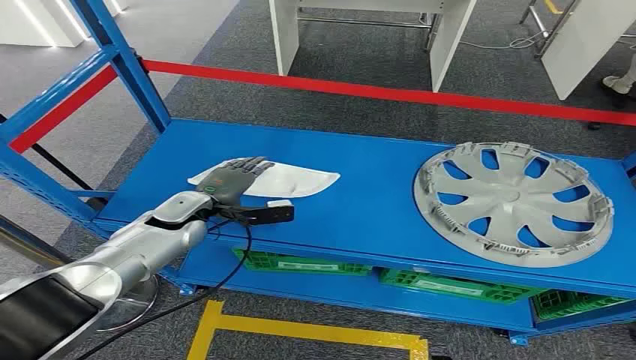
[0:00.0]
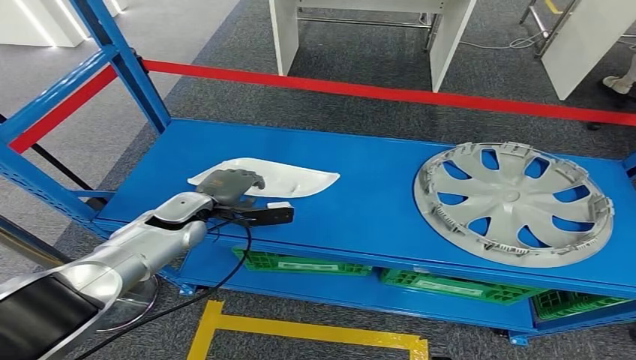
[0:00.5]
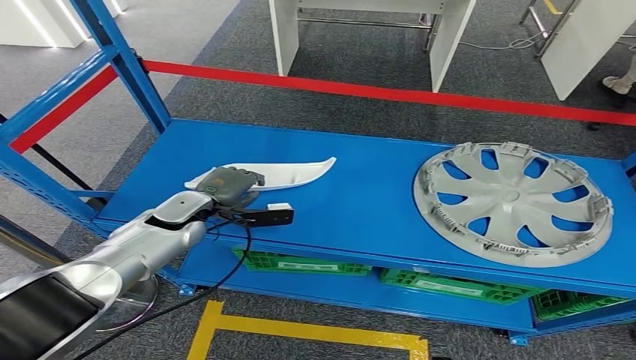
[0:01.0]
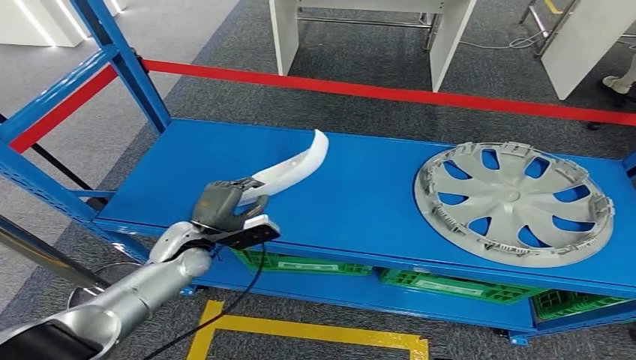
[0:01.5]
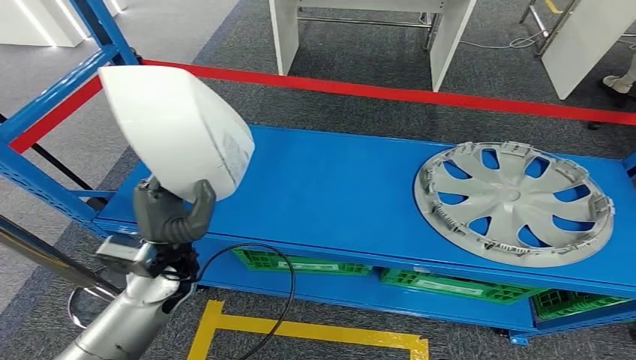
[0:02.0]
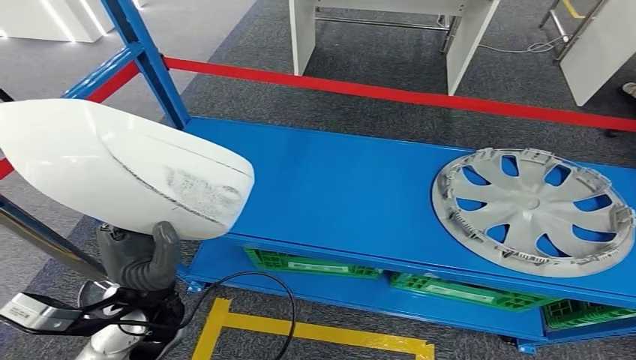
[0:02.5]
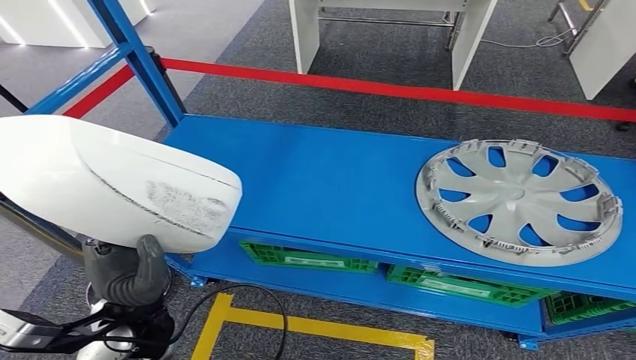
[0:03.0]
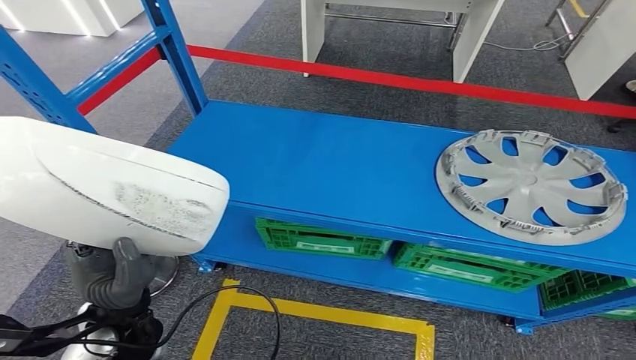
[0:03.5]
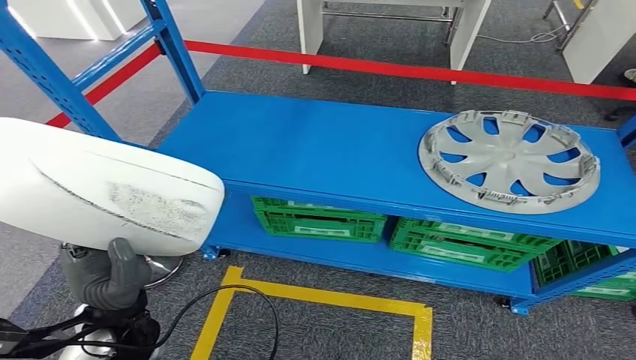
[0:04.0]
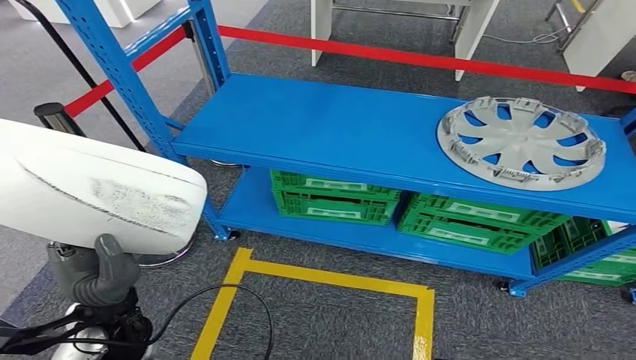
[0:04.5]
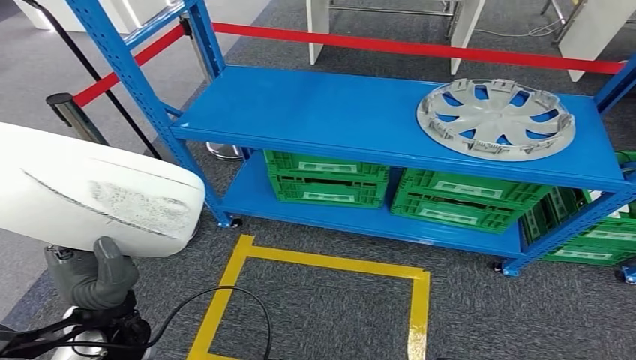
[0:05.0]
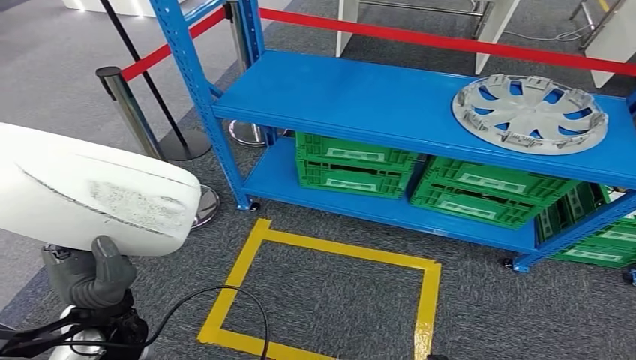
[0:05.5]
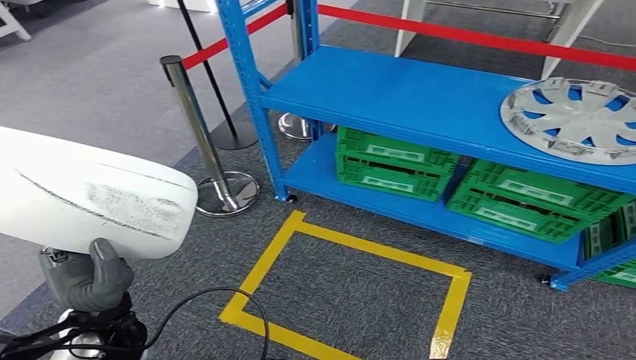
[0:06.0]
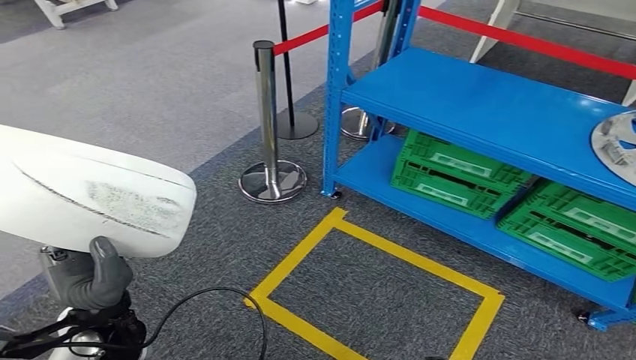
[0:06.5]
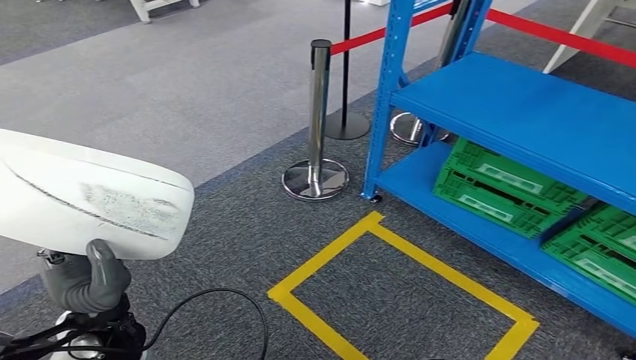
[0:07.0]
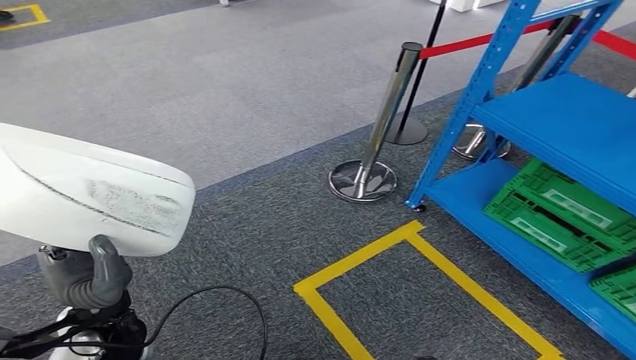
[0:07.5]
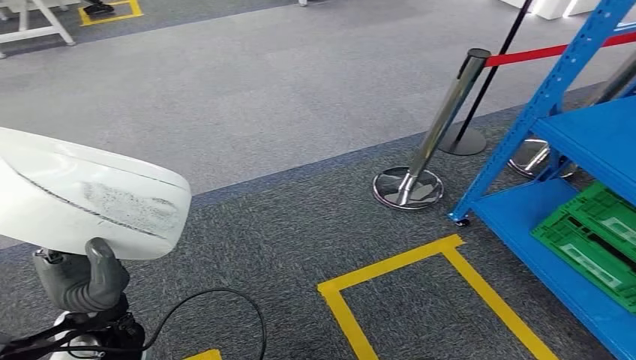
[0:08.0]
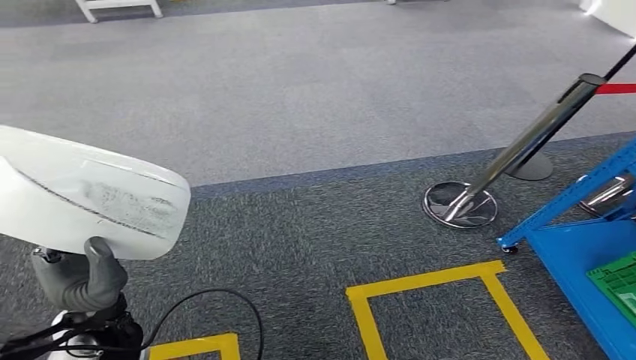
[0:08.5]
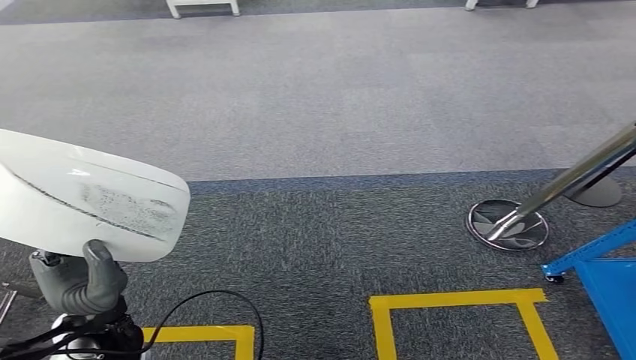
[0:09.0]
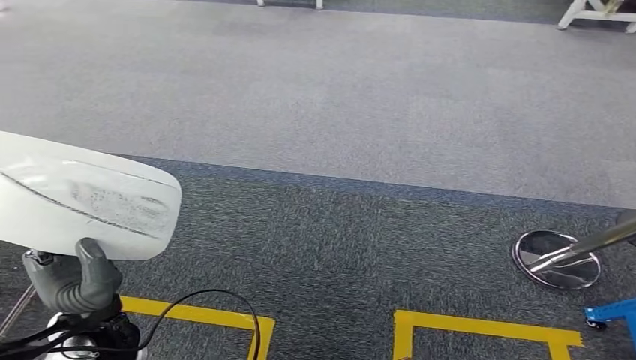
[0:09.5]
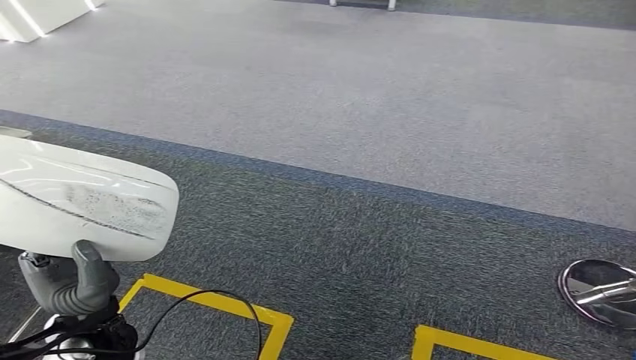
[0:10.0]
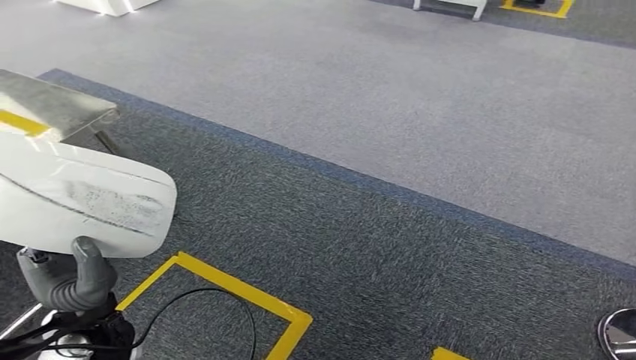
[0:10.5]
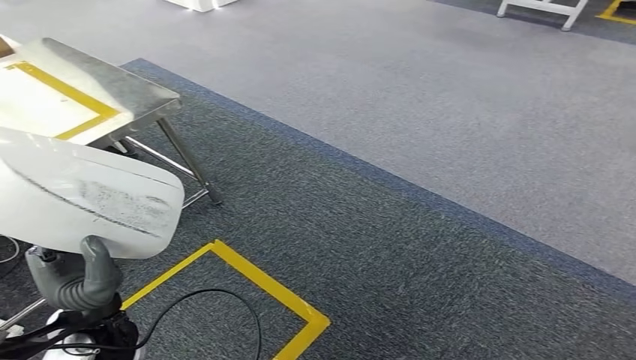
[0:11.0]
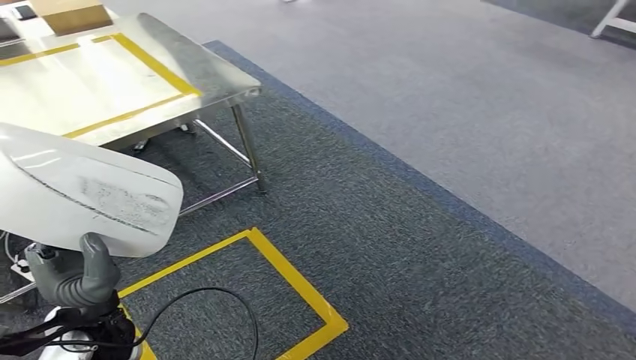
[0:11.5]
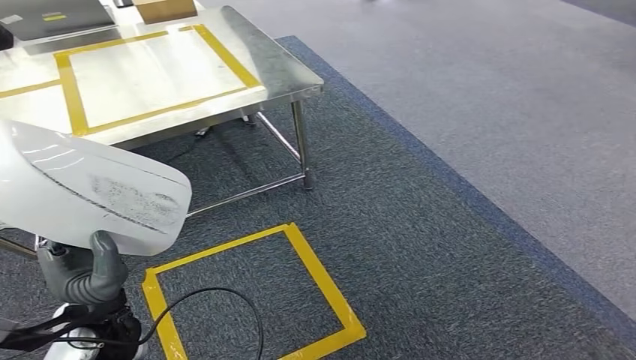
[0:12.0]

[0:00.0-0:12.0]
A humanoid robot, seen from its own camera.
Step, 0:00.0 to 0:03.5: Pick up the small component from the shelf.

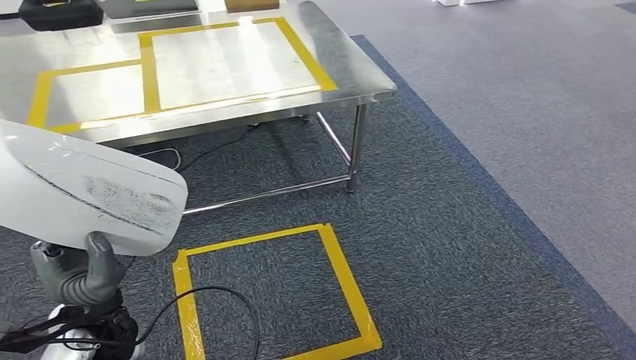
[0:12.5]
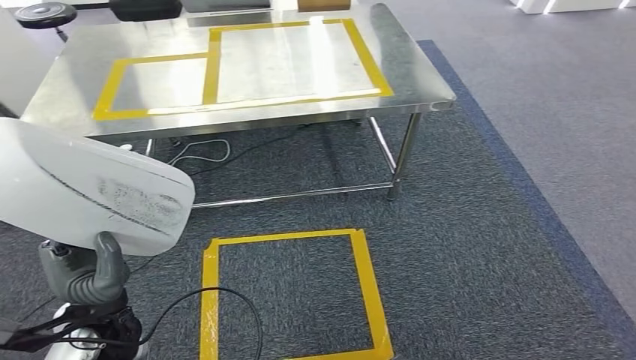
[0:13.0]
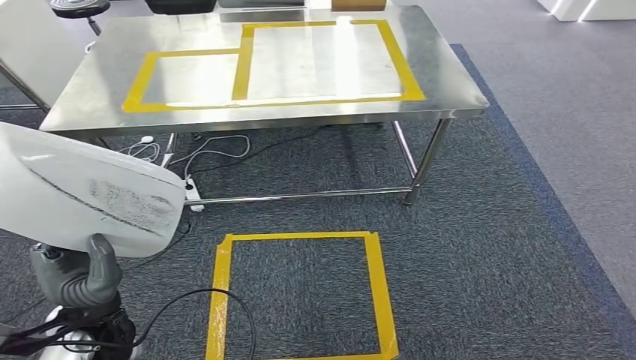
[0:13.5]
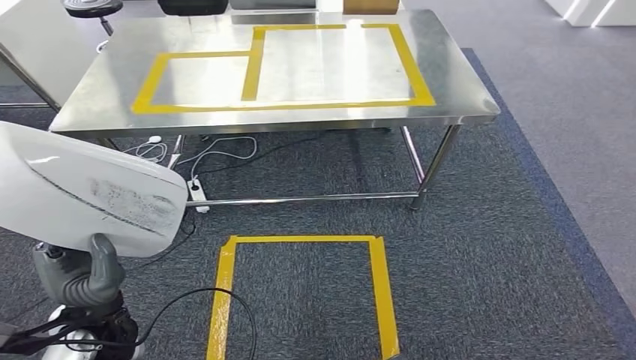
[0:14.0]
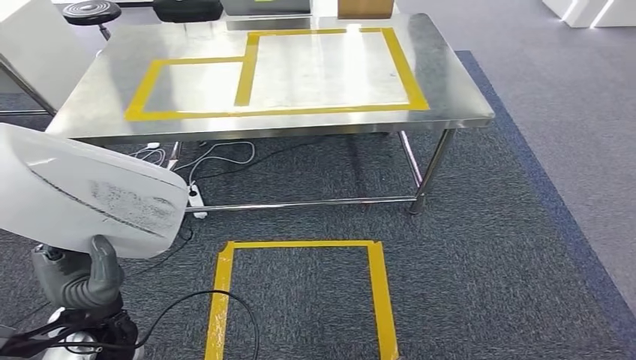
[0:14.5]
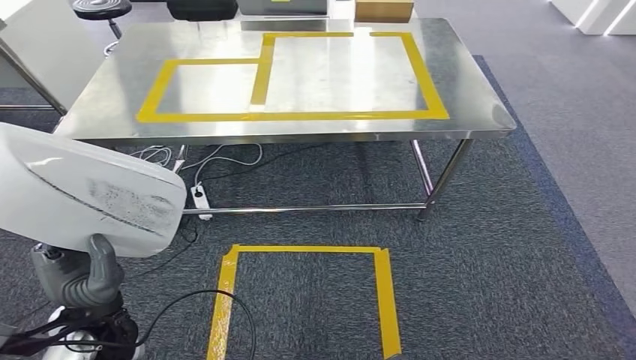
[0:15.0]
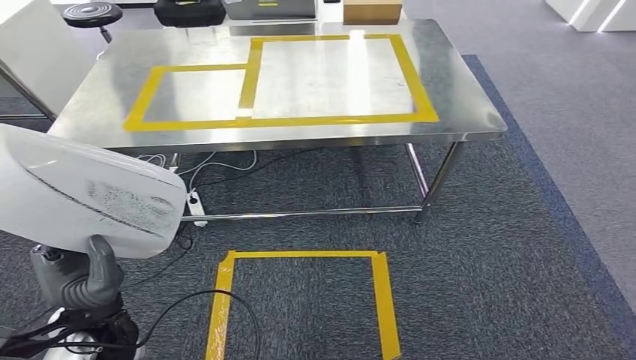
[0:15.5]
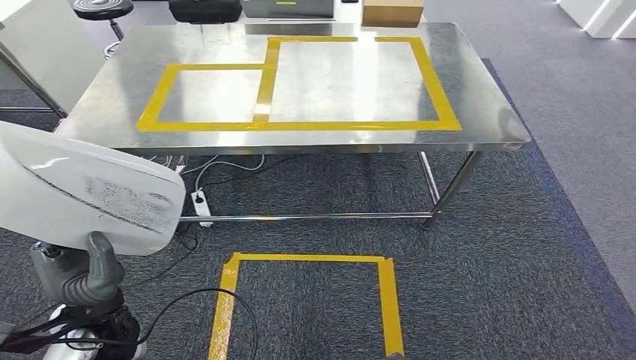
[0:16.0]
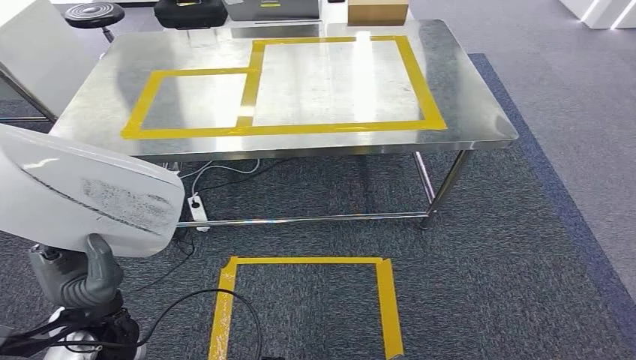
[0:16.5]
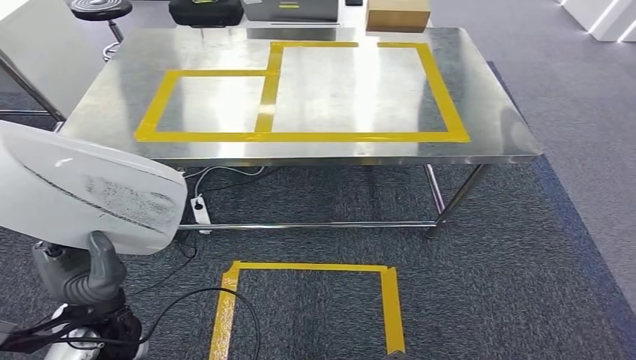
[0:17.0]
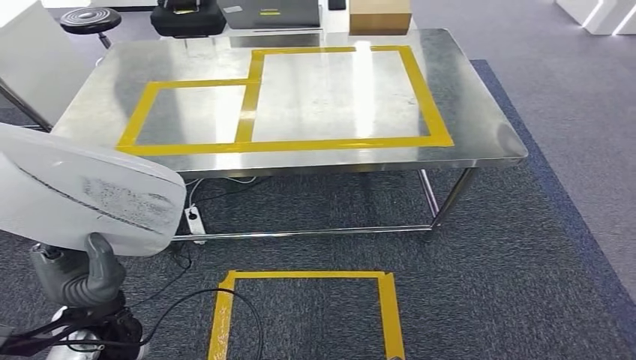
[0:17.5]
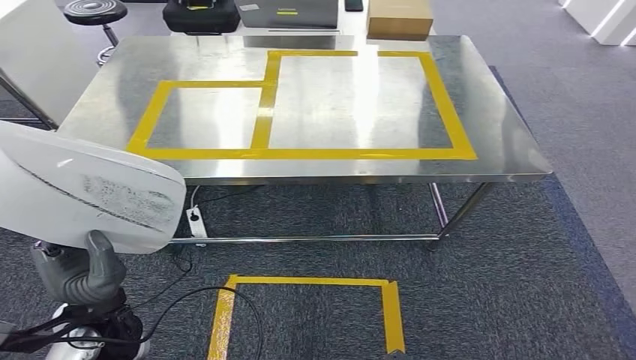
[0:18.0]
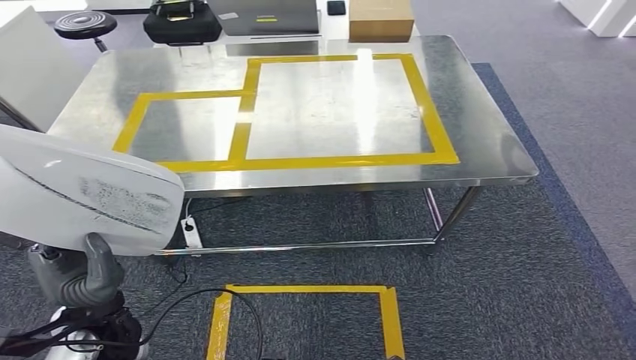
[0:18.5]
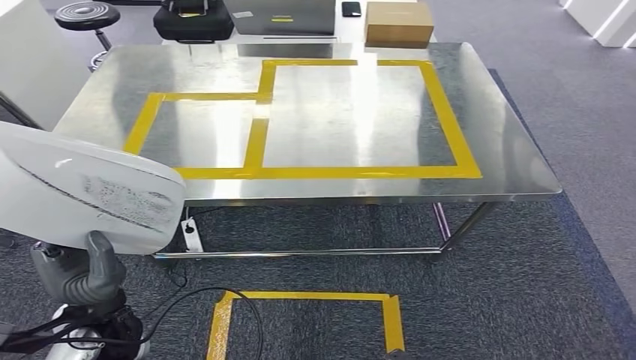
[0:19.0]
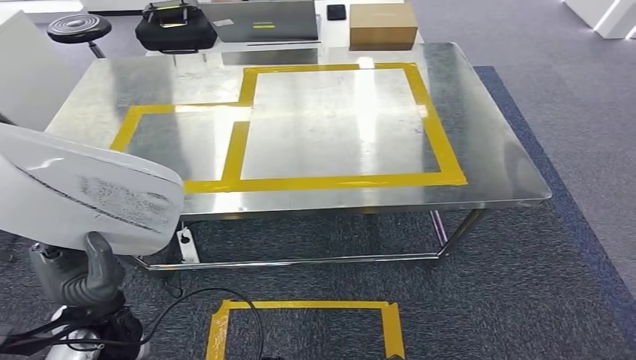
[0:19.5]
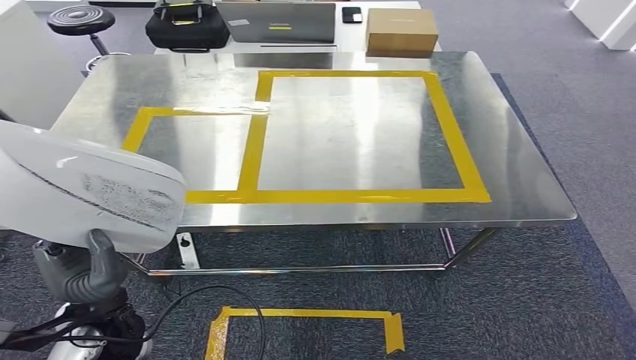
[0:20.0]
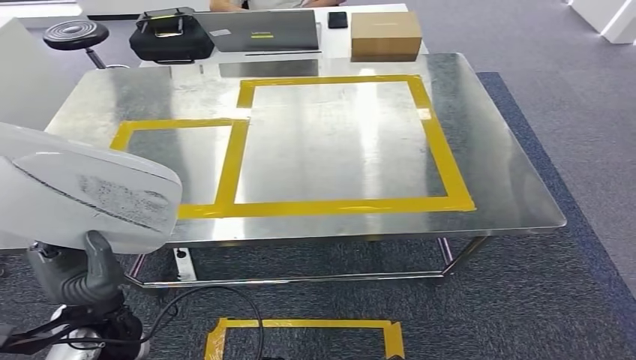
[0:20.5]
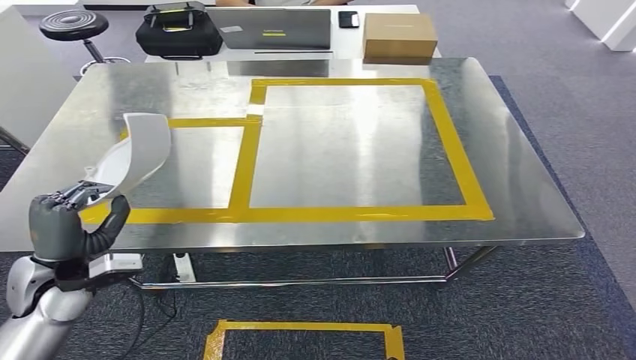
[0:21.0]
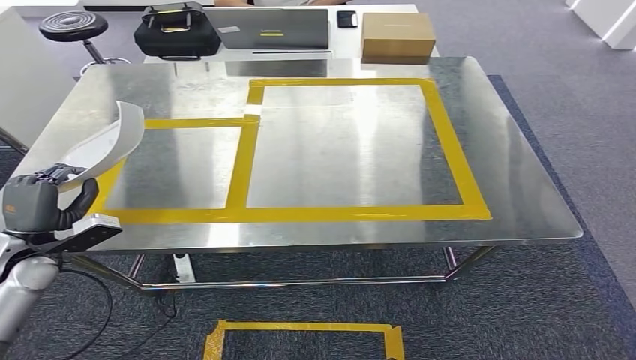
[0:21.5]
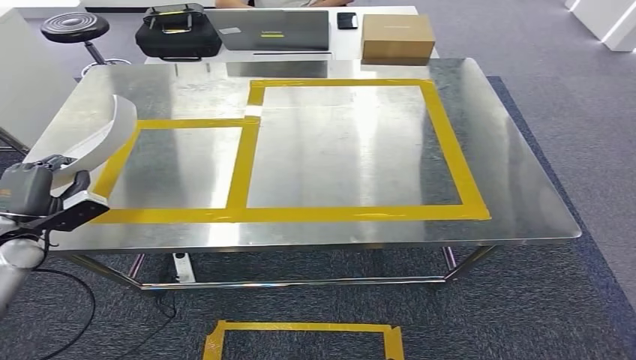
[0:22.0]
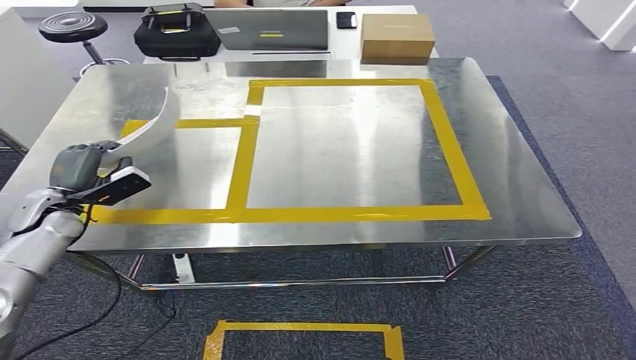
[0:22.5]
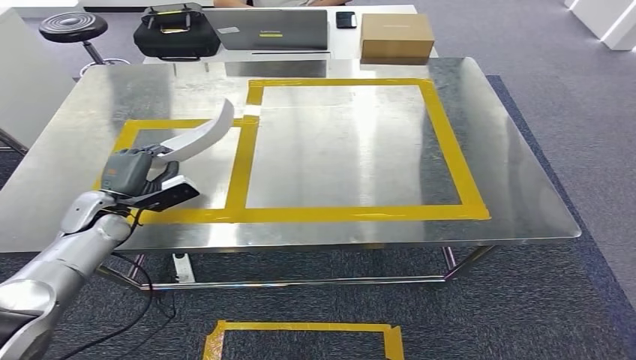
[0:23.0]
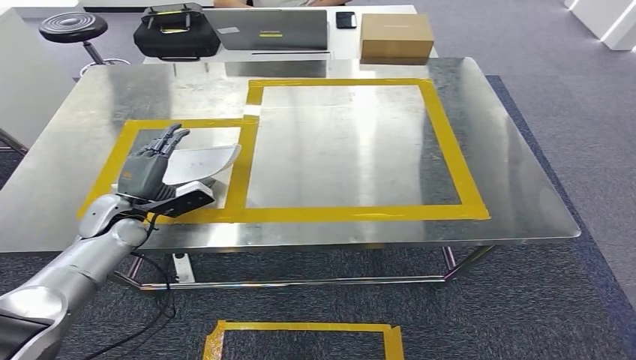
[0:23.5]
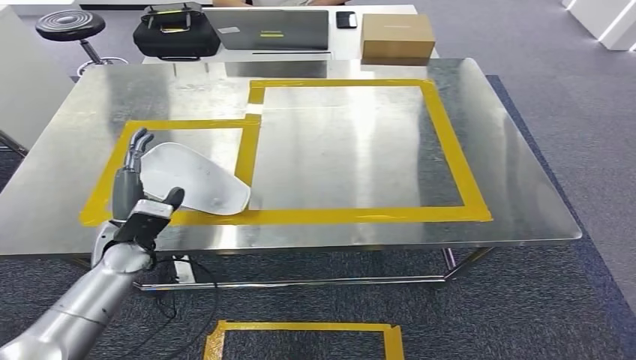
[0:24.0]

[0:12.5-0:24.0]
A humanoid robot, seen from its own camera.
Step, 0:12.5 to 0:15.5: Move the small component to the workbench.
0:22.0 to 0:24.0: The left hand travels to the right by some 15 cm.
